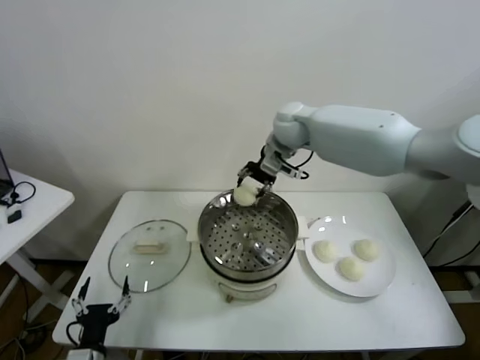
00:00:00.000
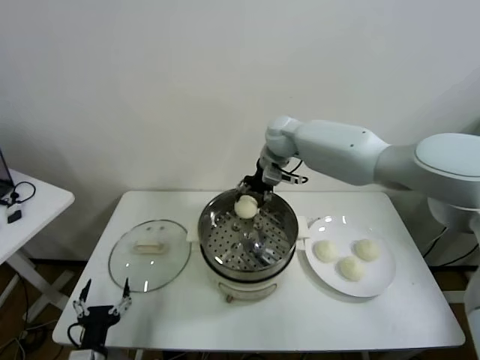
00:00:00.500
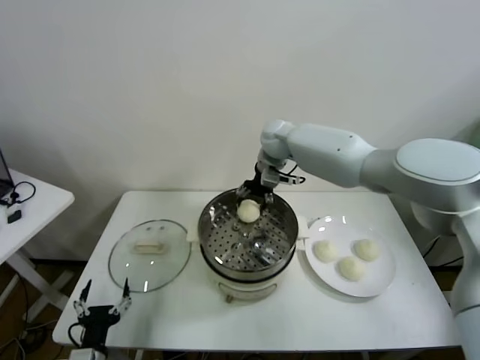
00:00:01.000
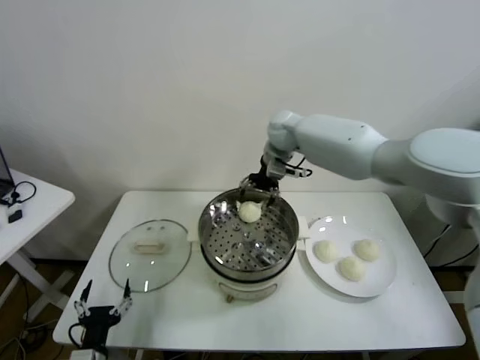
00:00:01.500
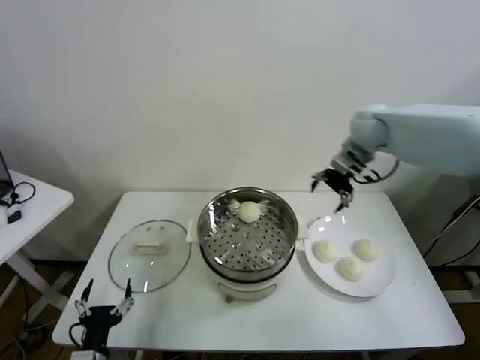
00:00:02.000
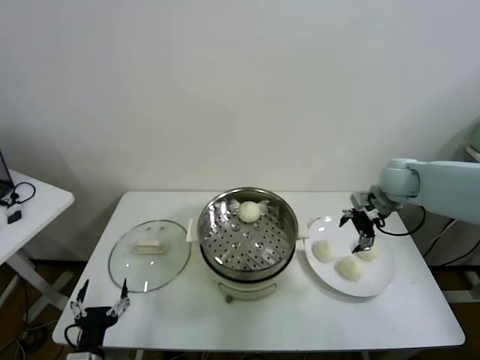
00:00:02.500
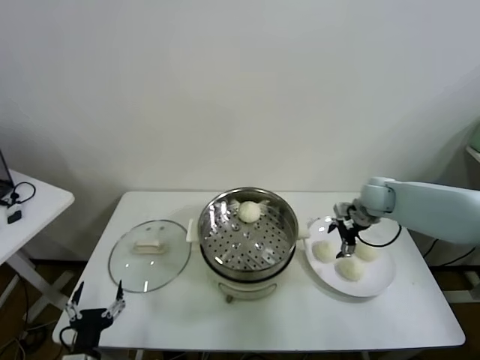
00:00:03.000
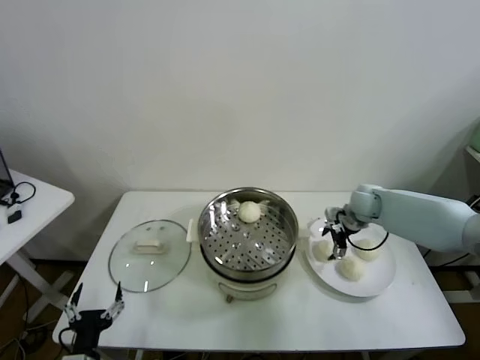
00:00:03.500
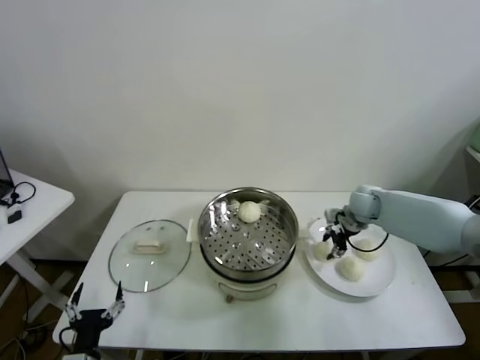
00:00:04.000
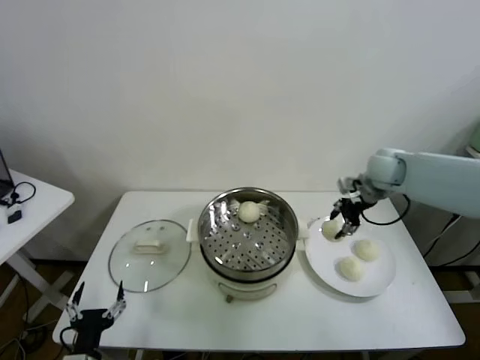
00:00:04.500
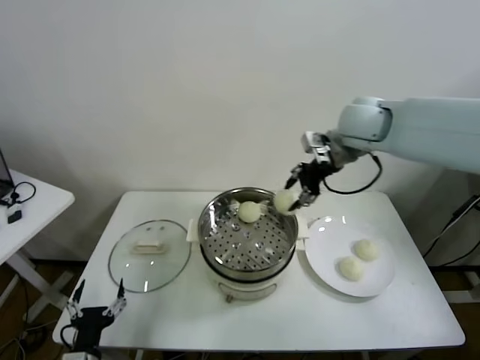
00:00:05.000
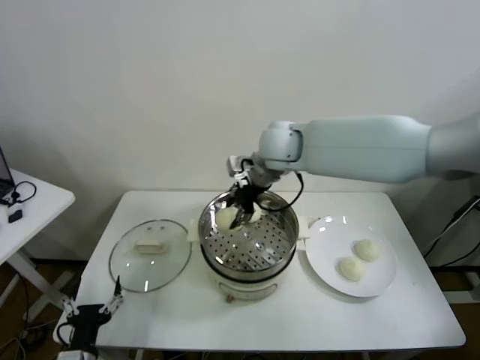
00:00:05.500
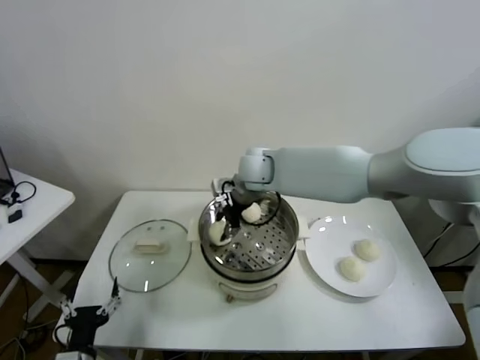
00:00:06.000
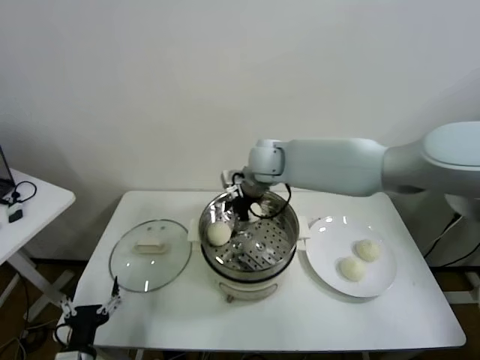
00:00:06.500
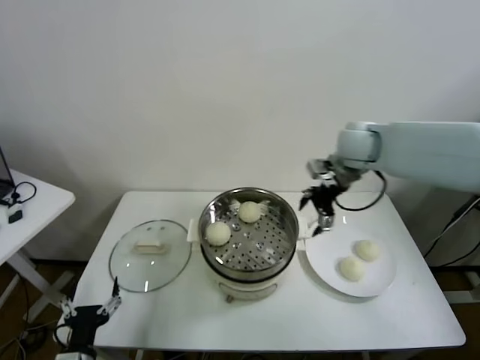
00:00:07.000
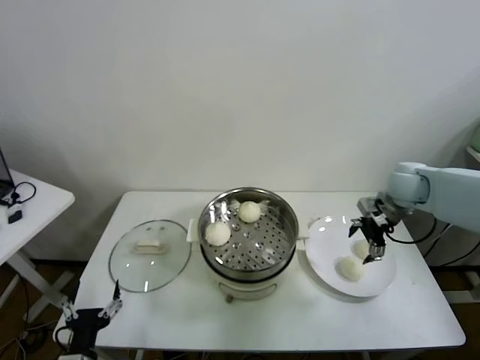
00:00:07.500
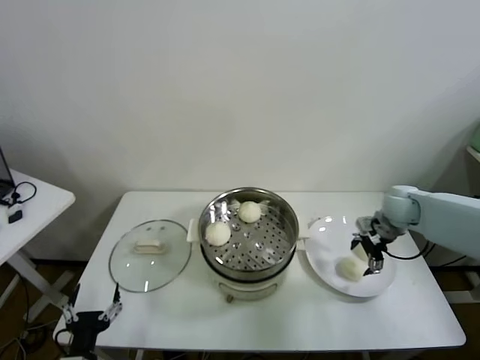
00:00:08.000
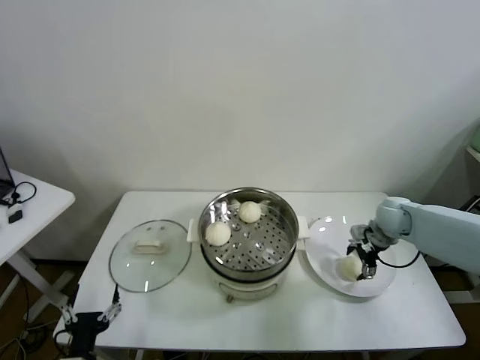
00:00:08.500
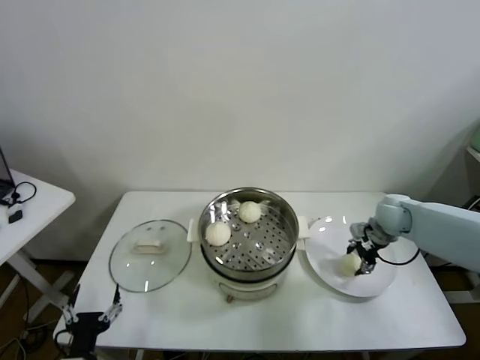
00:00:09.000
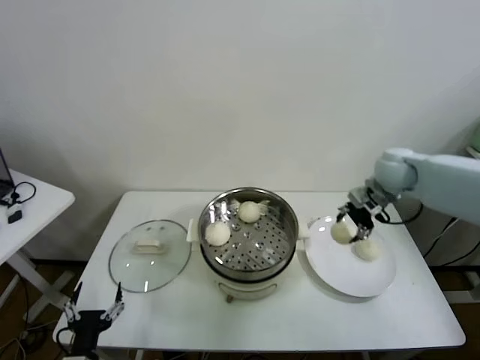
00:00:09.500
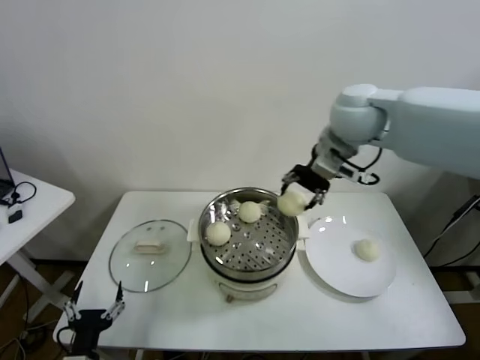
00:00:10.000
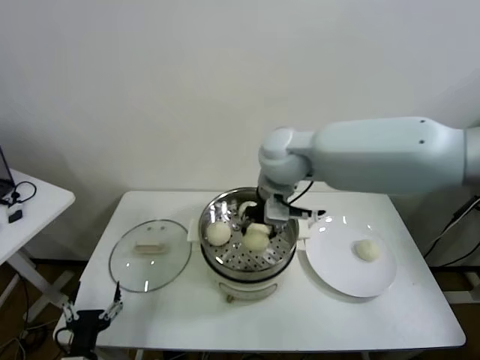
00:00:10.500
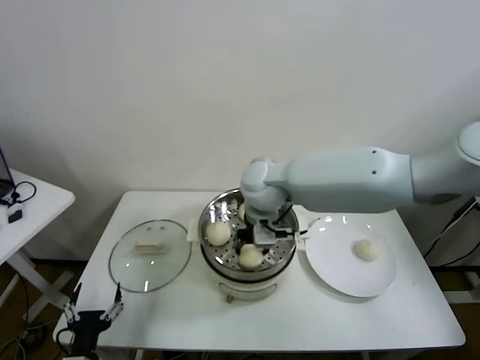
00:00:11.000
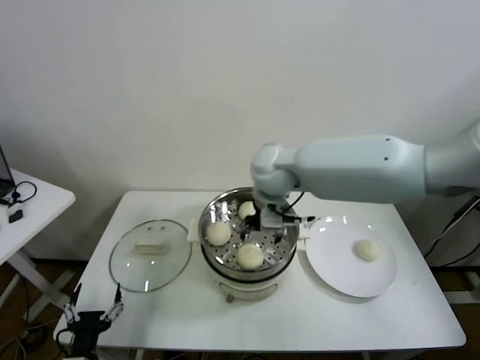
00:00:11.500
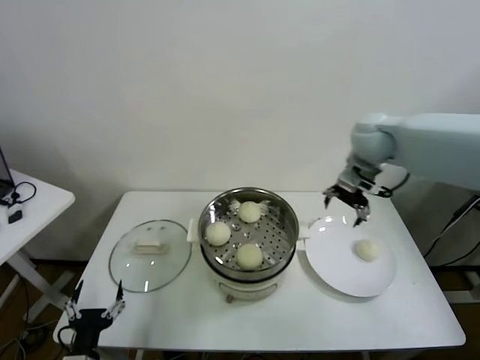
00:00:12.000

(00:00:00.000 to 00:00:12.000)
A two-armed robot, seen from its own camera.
Task of the whole recording: take steamed baozi put them in steamer.
Step, 00:00:01.500 - 00:00:03.500: Grasp the baozi in the plate with right gripper.
Step, 00:00:04.500 - 00:00:06.000: Place the baozi on the steamer with right gripper.
Step, 00:00:06.500 - 00:00:08.500: Grasp the baozi in the plate with right gripper.
Step, 00:00:09.000 - 00:00:11.000: Place the baozi on the steamer with right gripper.
00:00:00.000 - 00:00:02.000: The right gripper moves to the right, approximately 20 cm, and opens up.
00:00:02.000 - 00:00:04.000: The right gripper travels downward by about 20 cm, and closes.
00:00:04.000 - 00:00:06.000: The right gripper is displaced to the left and upward by approximately 30 cm.
00:00:06.000 - 00:00:08.000: The right gripper shifts roughly 35 cm to the right, and opens.
00:00:08.000 - 00:00:10.000: The right gripper moves upward and to the left, some 30 cm, and closes.
00:00:10.000 - 00:00:12.000: The right gripper shifts roughly 10 cm downward, moves roughly 15 cm to the left and comes back, and opens its fingers.

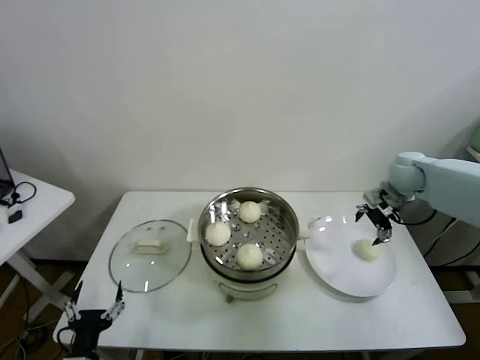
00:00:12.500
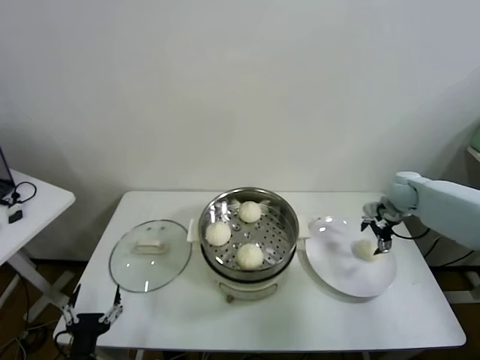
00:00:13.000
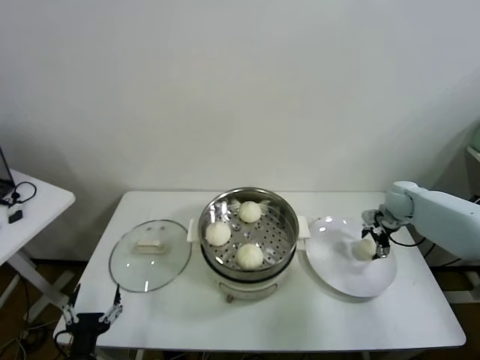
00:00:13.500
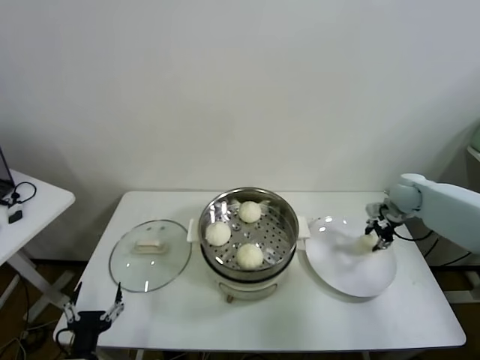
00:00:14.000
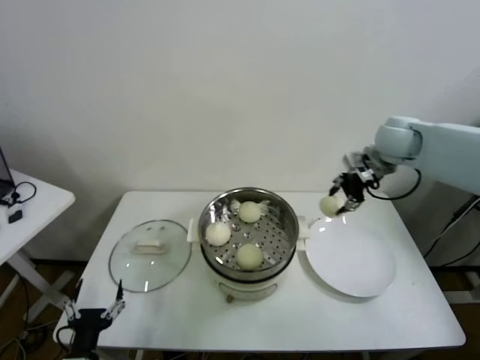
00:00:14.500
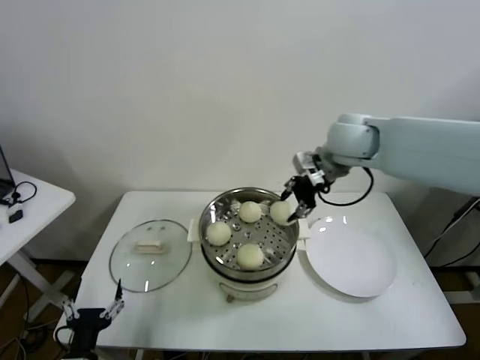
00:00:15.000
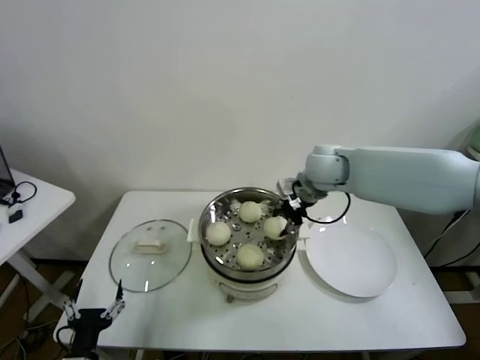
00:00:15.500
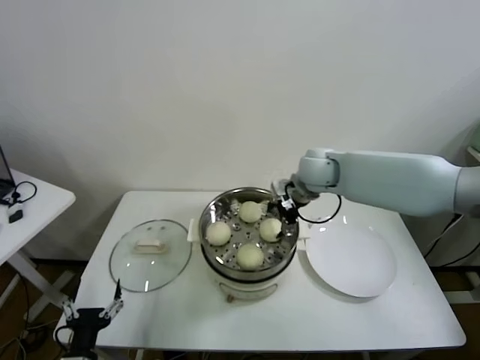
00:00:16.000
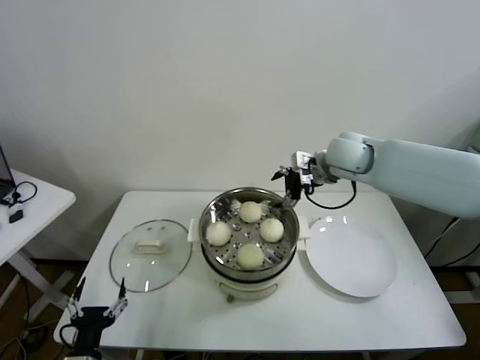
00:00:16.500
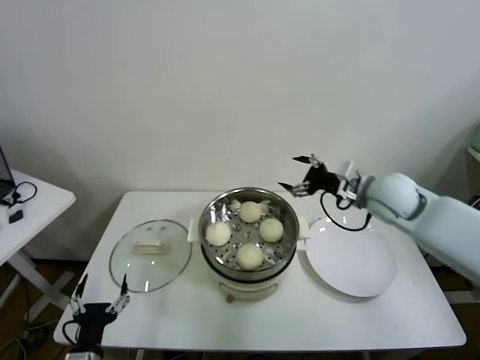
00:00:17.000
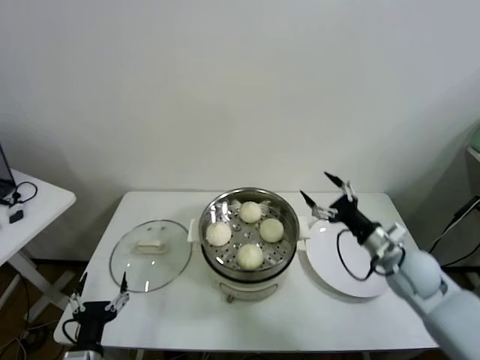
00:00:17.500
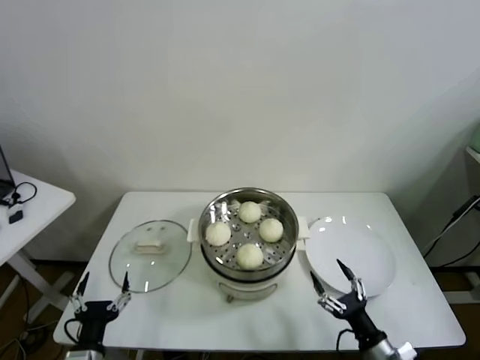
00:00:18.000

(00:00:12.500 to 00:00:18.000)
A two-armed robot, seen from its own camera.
Task of the whole recording: take steamed baozi put them in steamer.
Step, 00:00:14.000 - 00:00:16.000: Place the baozi on the steamer with right gripper.
00:00:12.500 - 00:00:14.500: The right gripper goes about 10 cm upward and to the left, and closes.
00:00:14.500 - 00:00:16.000: The right gripper goes some 20 cm to the left and downward, and opens.
00:00:16.000 - 00:00:18.000: The right gripper moves backward, downward and to the right, some 50 cm.
